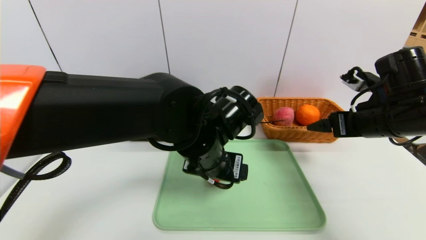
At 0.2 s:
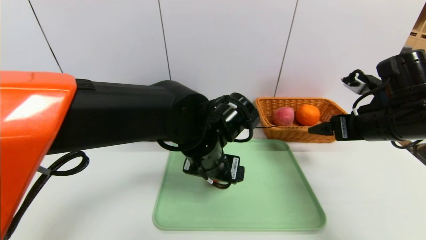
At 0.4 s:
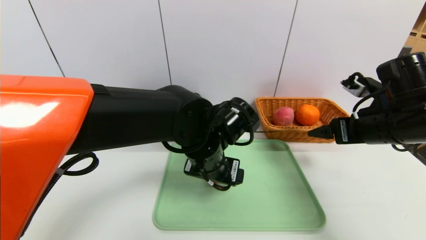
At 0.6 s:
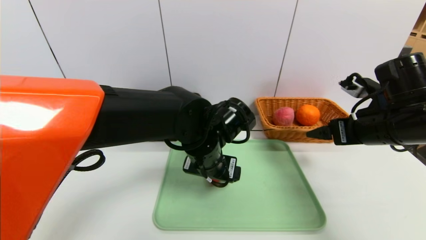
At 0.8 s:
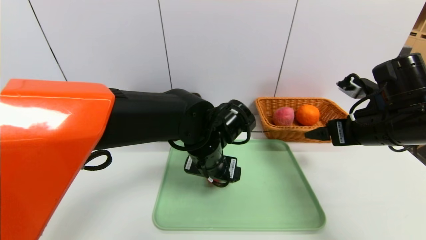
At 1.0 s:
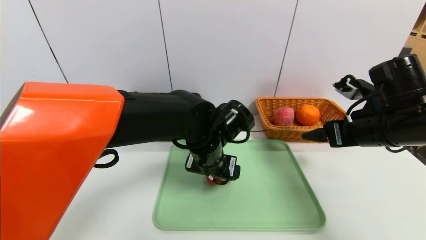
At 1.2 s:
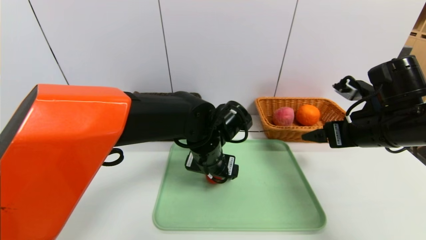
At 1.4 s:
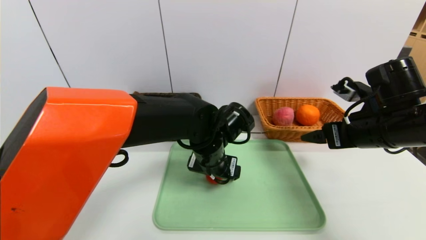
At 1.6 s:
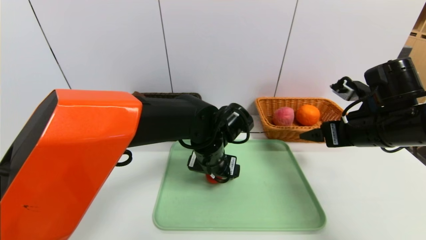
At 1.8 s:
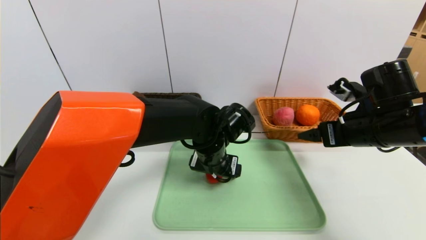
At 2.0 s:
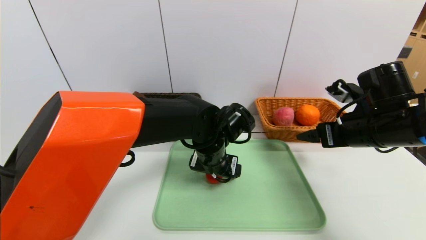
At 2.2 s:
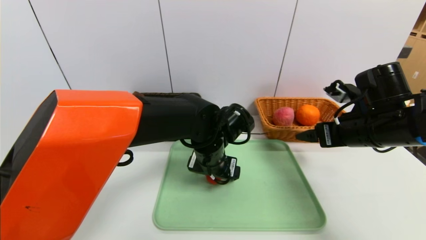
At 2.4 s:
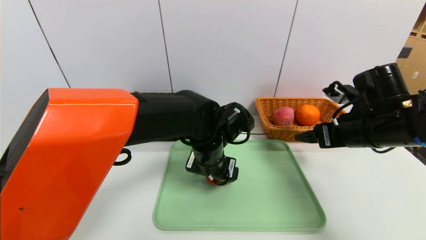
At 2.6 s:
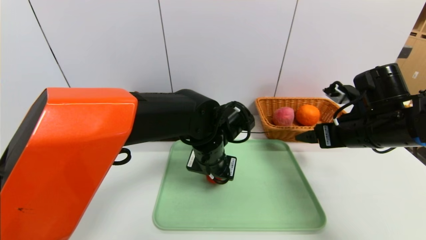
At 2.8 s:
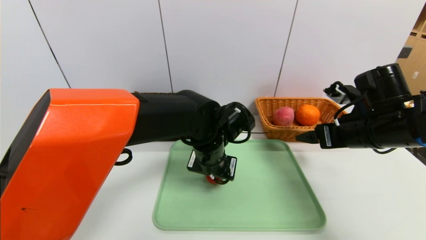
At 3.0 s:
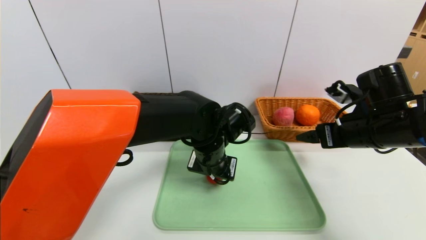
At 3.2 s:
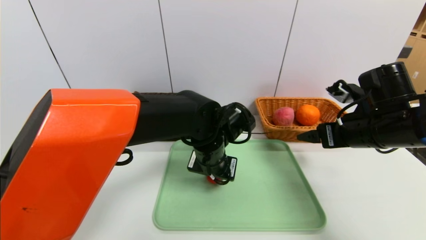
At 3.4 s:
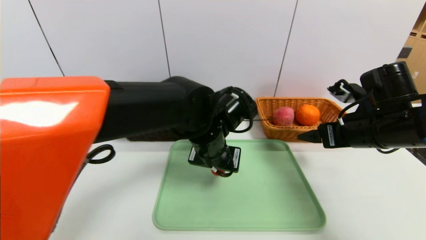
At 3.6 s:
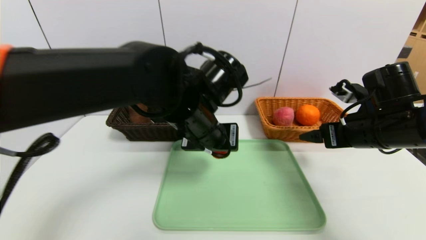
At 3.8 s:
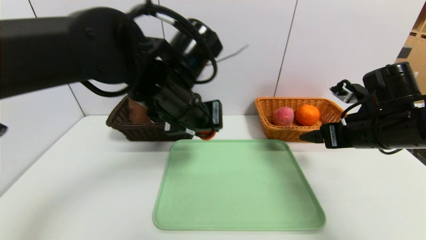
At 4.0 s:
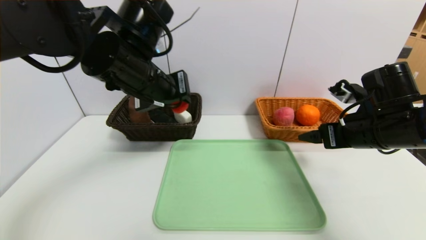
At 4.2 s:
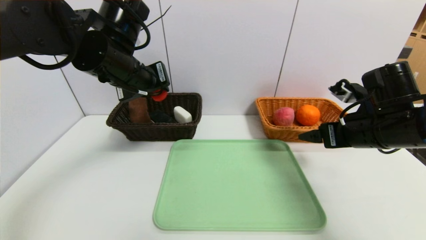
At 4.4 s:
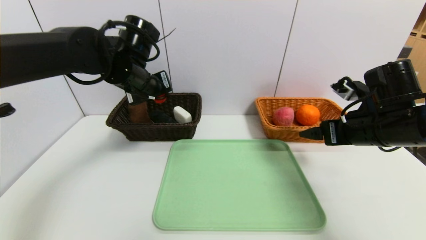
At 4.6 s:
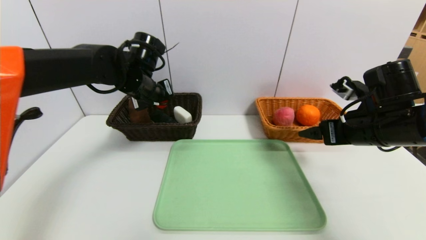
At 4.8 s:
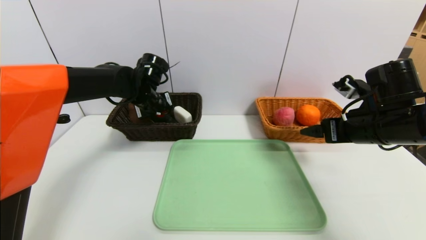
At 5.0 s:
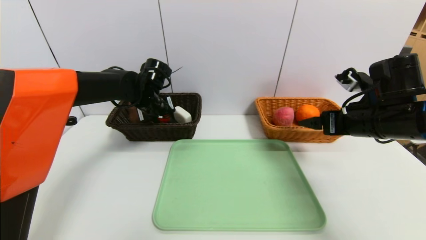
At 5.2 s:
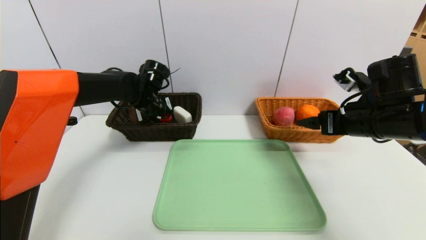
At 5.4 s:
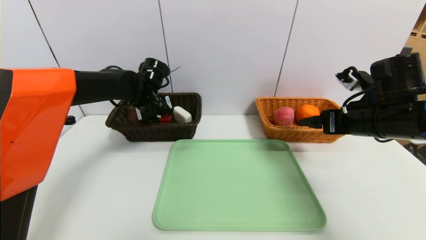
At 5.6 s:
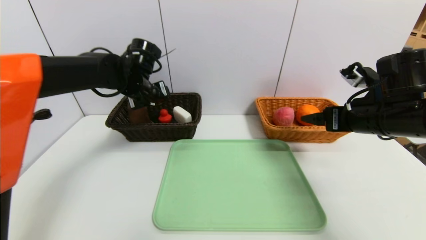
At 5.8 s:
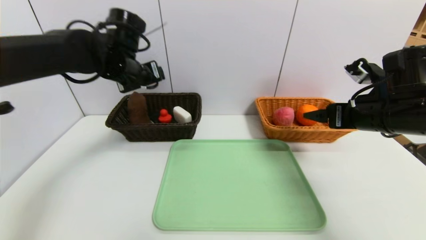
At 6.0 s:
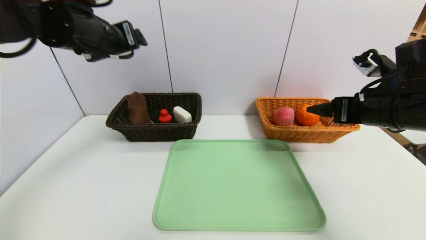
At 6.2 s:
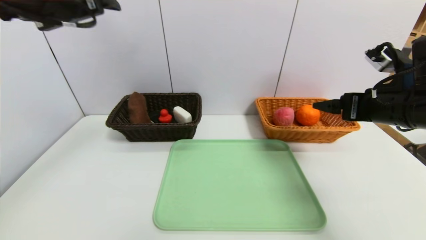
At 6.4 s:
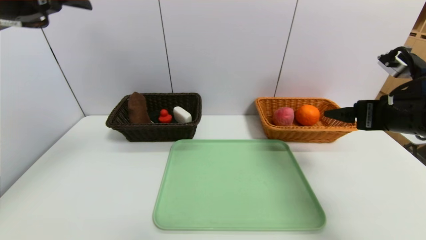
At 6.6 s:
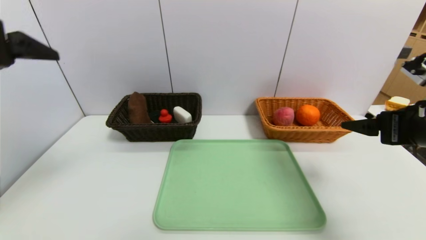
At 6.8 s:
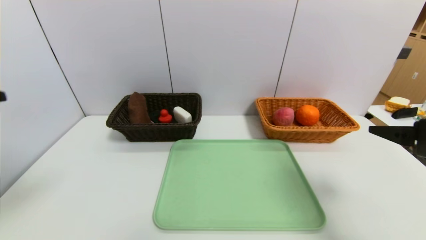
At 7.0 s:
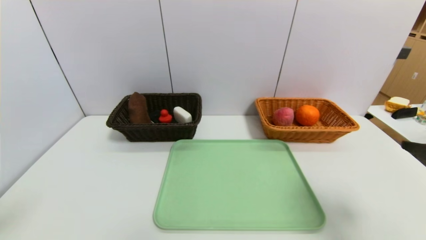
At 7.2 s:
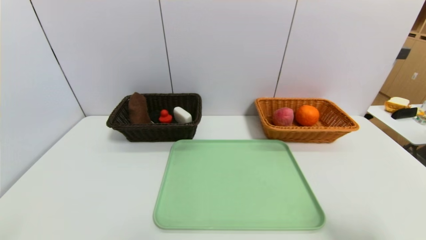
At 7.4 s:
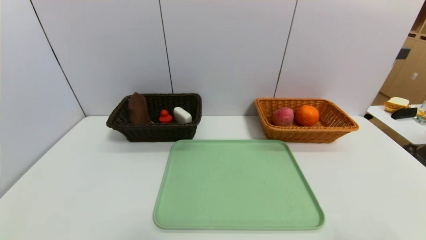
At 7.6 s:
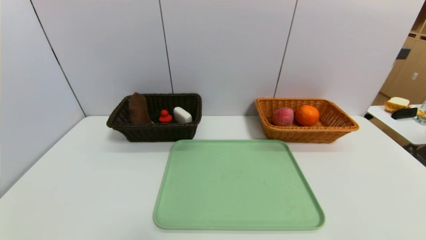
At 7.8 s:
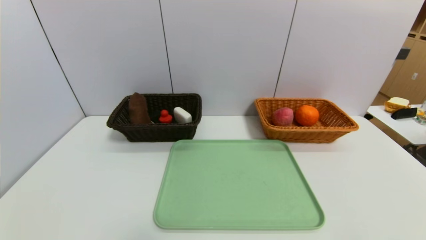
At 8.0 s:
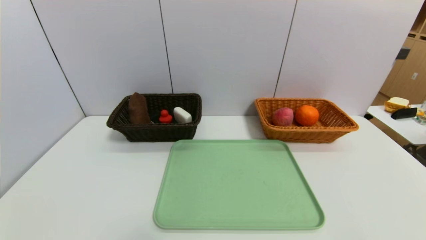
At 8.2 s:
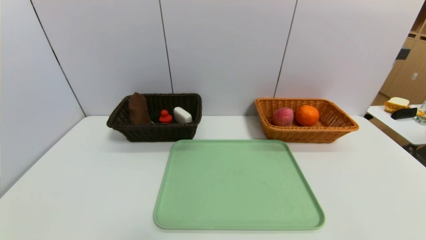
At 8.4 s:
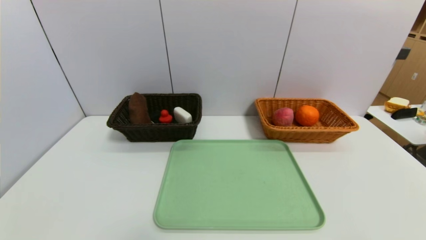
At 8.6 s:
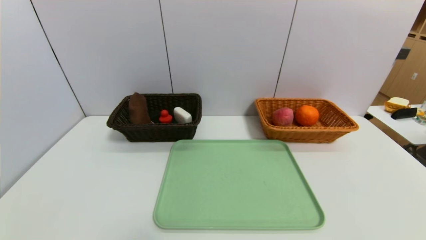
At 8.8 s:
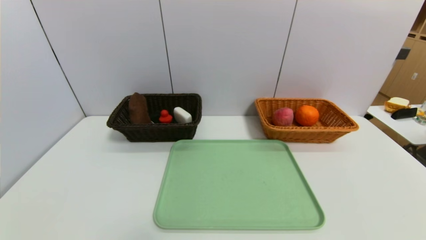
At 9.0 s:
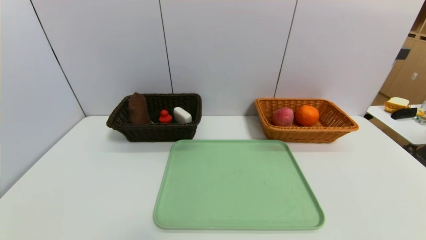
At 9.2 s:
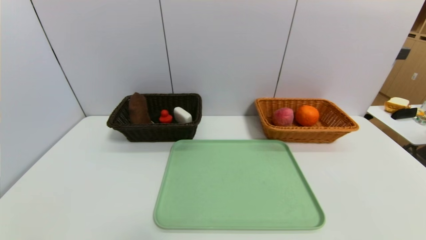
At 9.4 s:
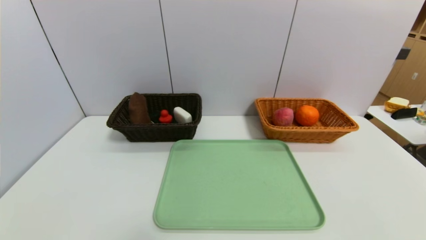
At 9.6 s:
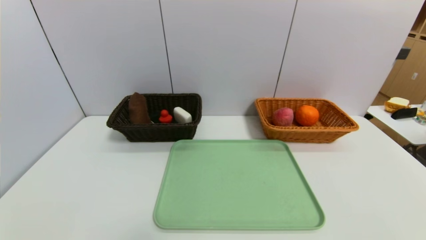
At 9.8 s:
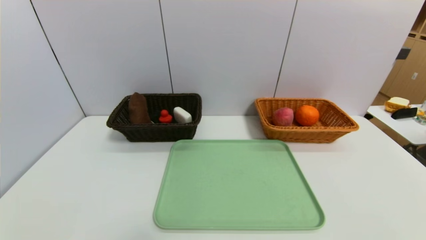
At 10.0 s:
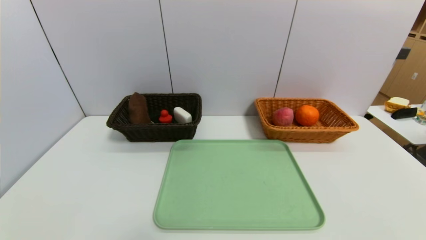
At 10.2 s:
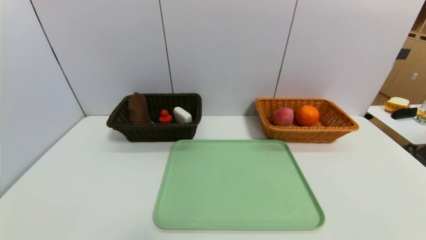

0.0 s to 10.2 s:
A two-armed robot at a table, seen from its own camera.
Task of the whole recording: place the food in the right basket with the right gripper, and place the non food items in the left basket with the left gripper.
Step, 0.0 to 6.4 s: Grasp the red duck and put it in the left basket.
0.0 to 1.4 s: The left gripper moves forward and downward, approximately 5 cm.
1.4 to 3.0 s: The left gripper closes its fingers.
3.0 to 4.4 s: The left gripper goes roughly 20 cm to the left, upward and forward.
4.4 to 5.8 s: The left gripper goes downward and returns, roughly 10 cm each way, and opens its fingers.
5.8 to 7.2 s: The left gripper shifts some 40 cm backward; the right gripper goes roughly 25 cm backward.
7.2 to 8.8 s: The right gripper moves backward and downward, approximately 10 cm.
